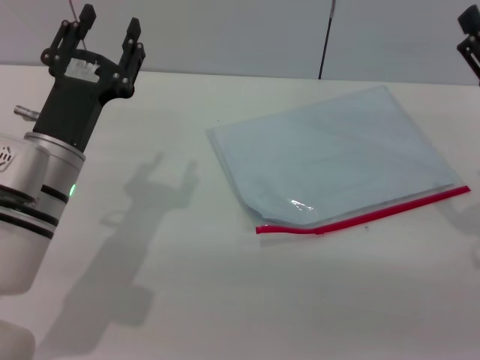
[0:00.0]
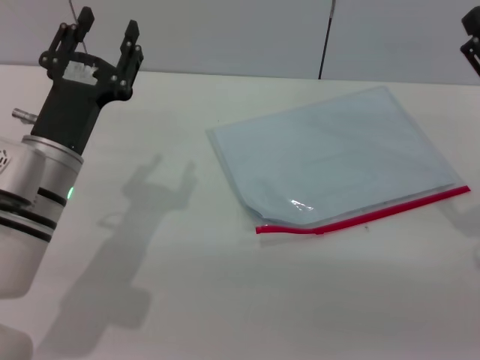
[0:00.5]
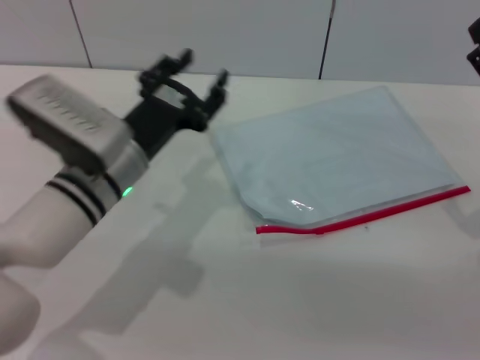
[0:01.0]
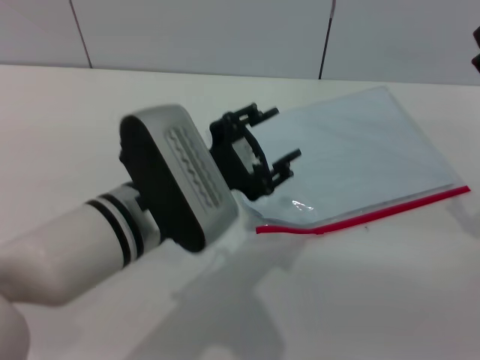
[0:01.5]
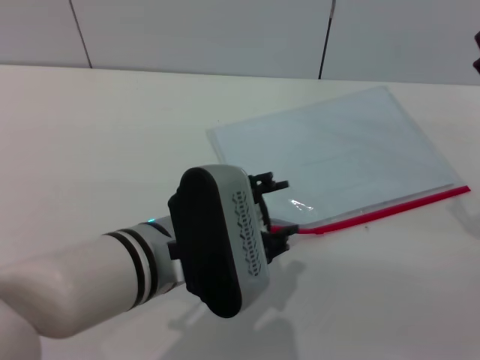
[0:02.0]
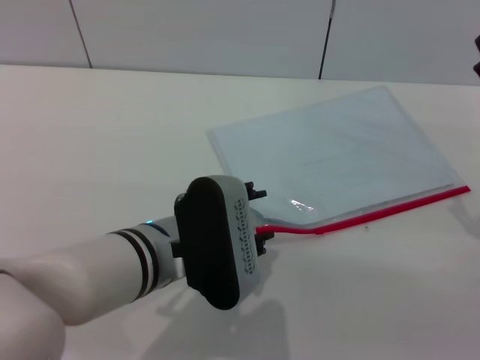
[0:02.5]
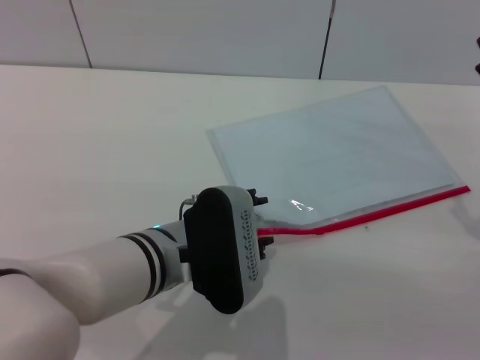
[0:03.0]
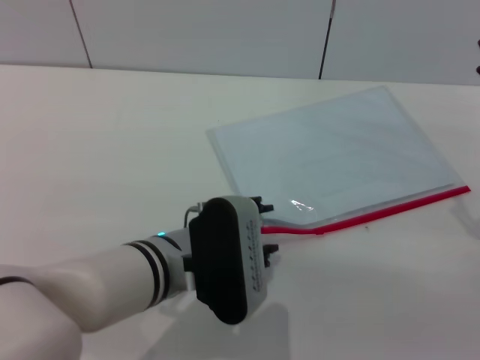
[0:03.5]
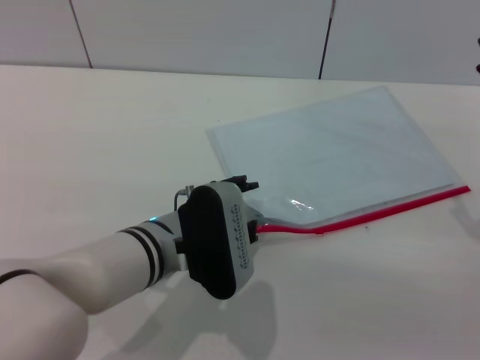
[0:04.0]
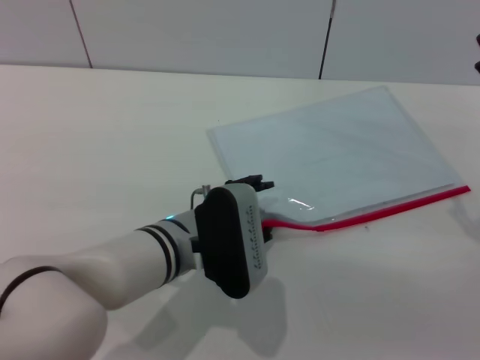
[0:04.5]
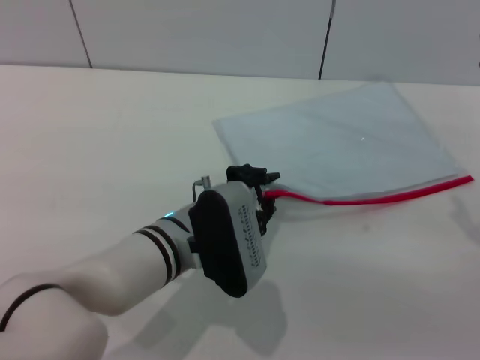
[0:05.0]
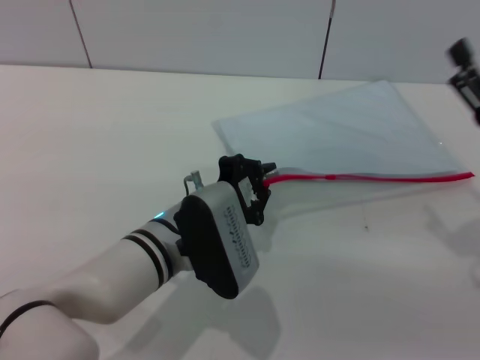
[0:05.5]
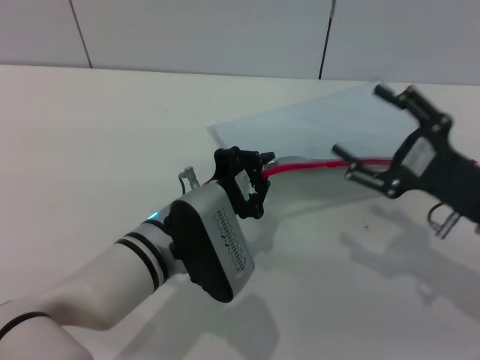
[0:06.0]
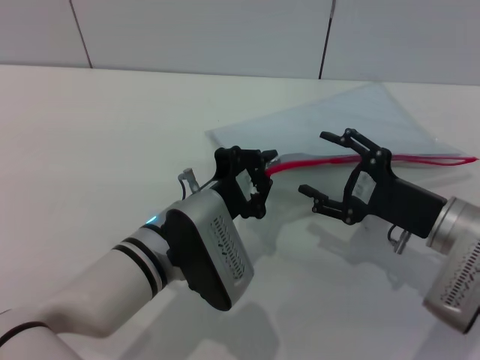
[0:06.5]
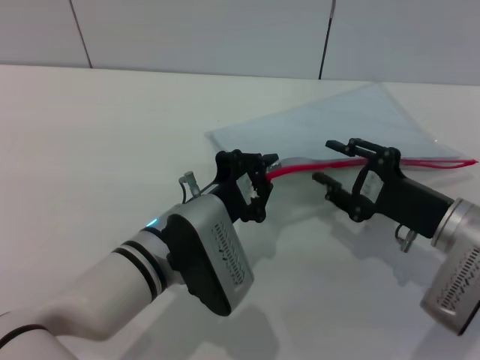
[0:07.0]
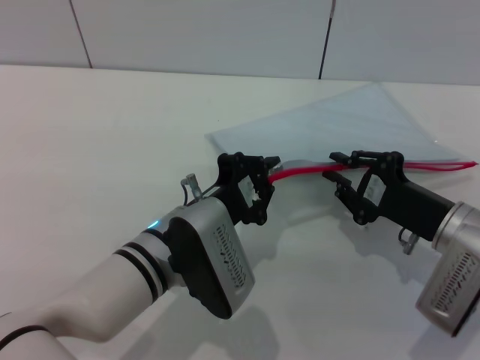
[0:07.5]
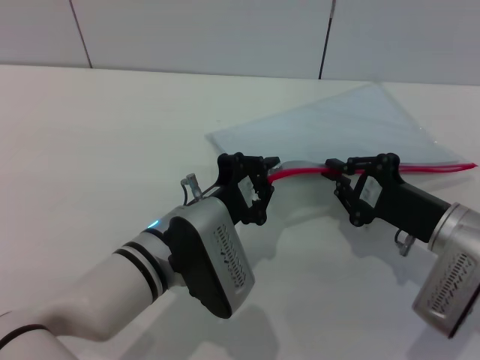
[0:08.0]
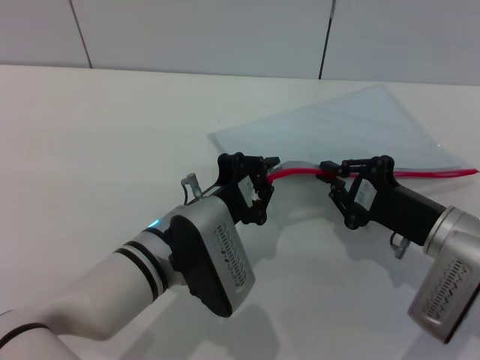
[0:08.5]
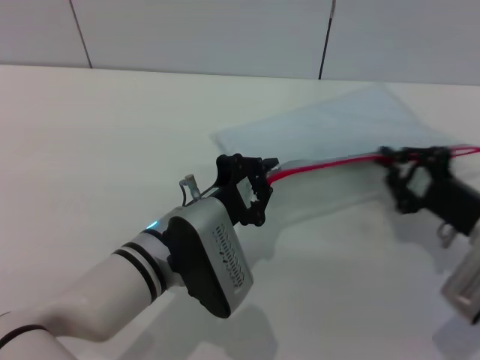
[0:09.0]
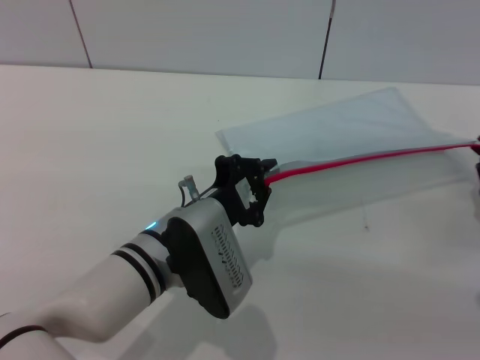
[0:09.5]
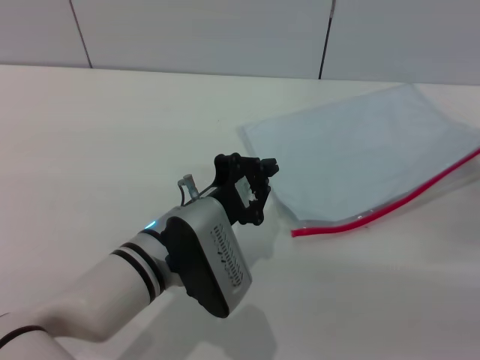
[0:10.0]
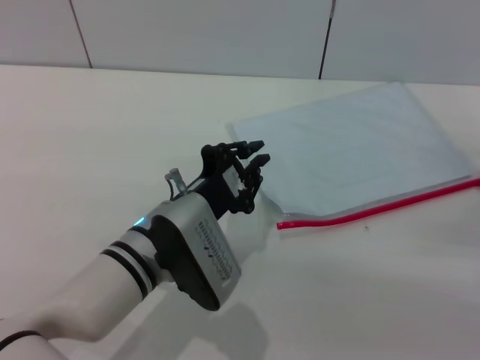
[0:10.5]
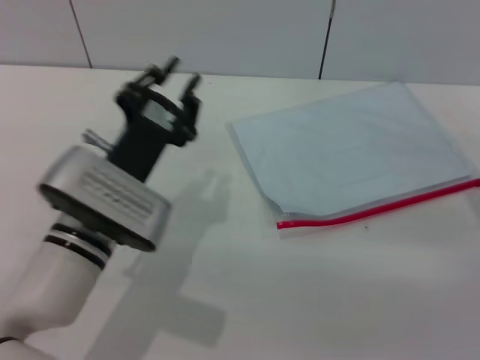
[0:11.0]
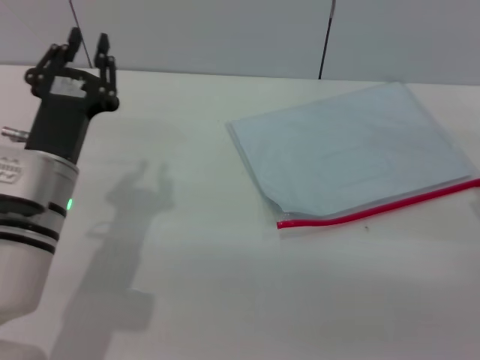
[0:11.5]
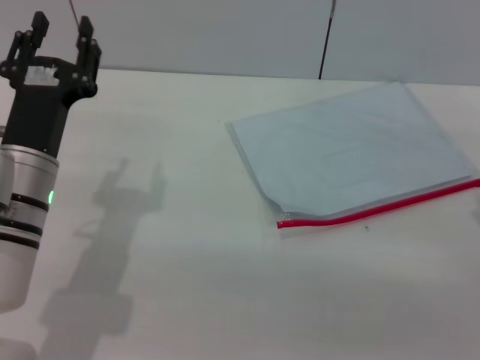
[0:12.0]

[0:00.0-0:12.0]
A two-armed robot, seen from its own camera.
Step, 0:00.0 to 0:05.5: Pick up the transparent plastic bag with the left gripper.
Step, 0:06.5 to 0:09.5: Pulling up the zipper on the transparent plastic bag with the right gripper to close it.
Step, 0:10.0 to 0:11.5: Place the transparent plastic bag.
0:00.0 to 0:02.0: The left gripper shifts roughly 15 cm to the right and backward.
0:02.0 to 0:04.0: The left gripper shifts approximately 5 cm downward.
0:04.0 to 0:06.0: The left gripper closes its fingers.
0:06.0 to 0:08.0: The right gripper moves some 5 cm, and closes up.
0:08.0 to 0:10.0: The right gripper moves to the right, roughly 10 cm.
0:10.0 to 0:12.0: The left gripper shifts about 10 cm to the left, and opens its fingers; the right gripper travels upward and to the left by approximately 5 cm, and opens its fingers.

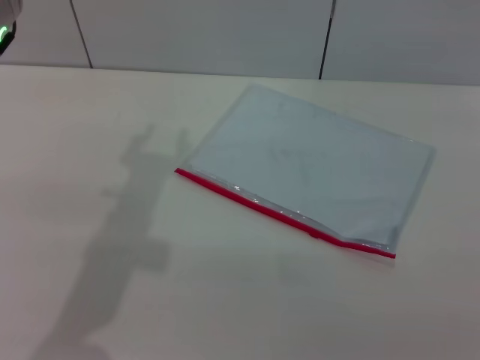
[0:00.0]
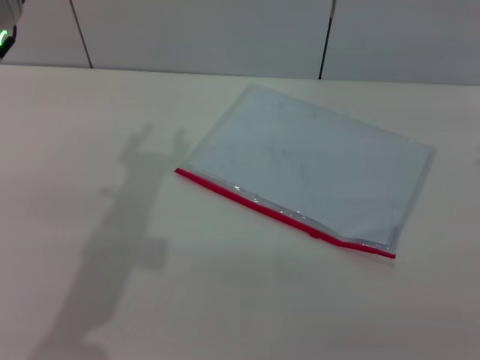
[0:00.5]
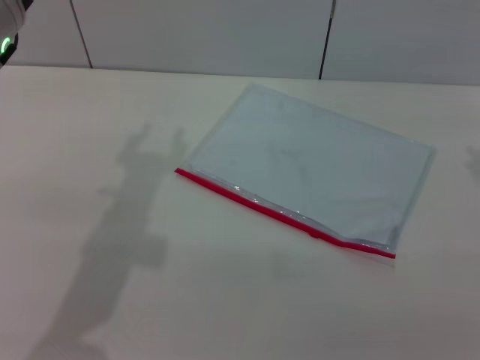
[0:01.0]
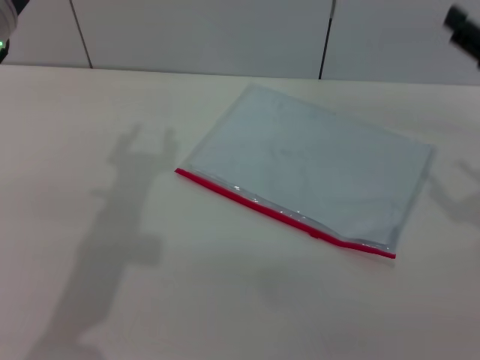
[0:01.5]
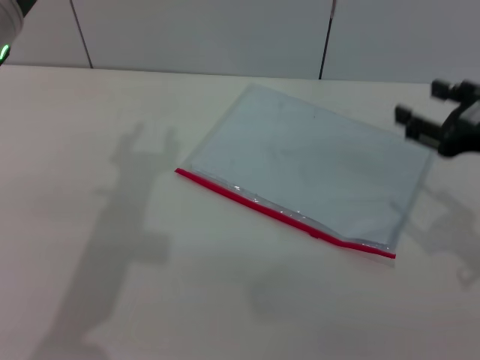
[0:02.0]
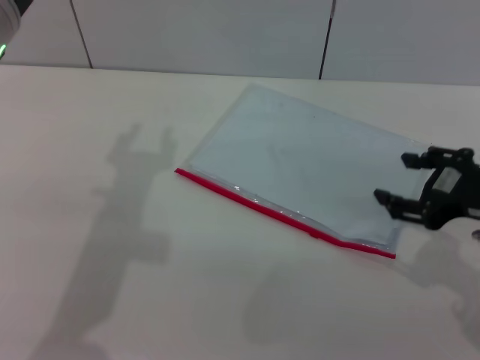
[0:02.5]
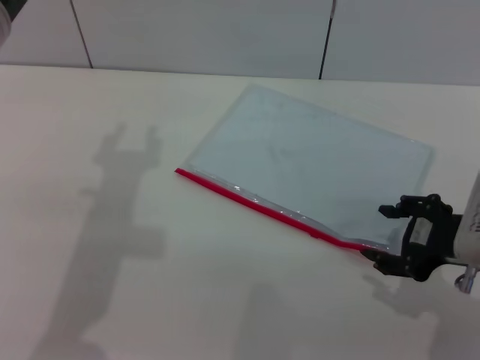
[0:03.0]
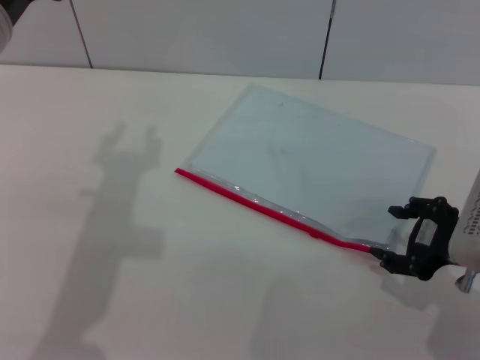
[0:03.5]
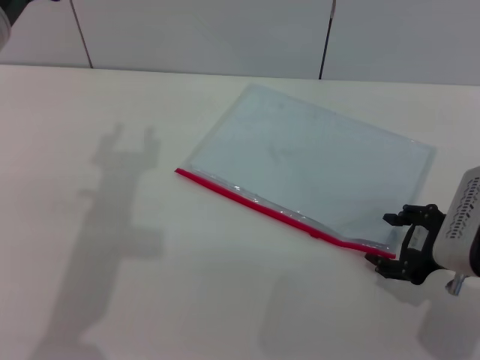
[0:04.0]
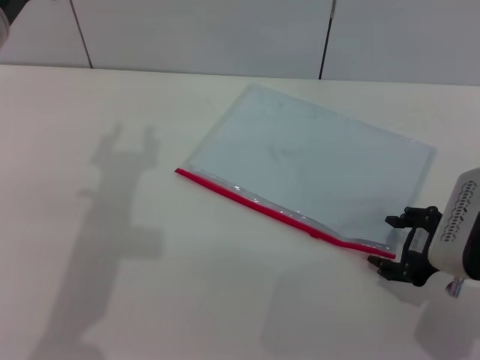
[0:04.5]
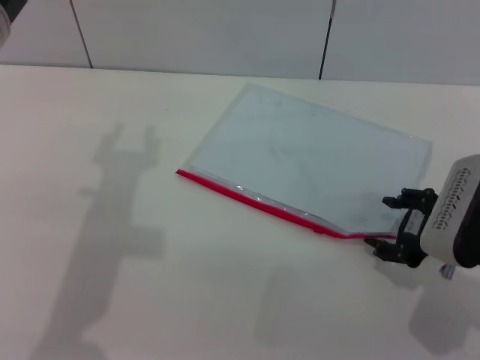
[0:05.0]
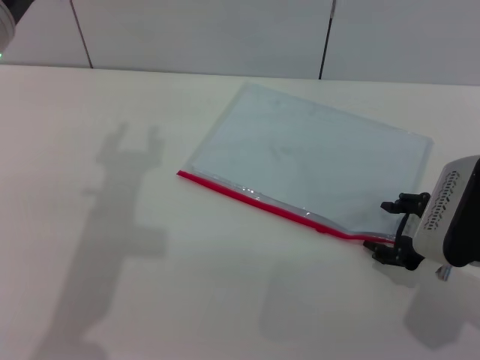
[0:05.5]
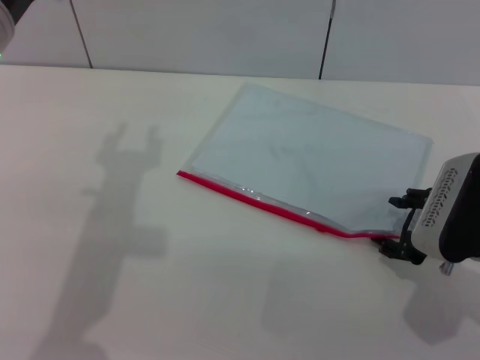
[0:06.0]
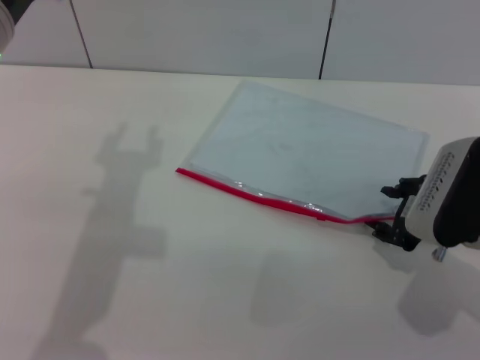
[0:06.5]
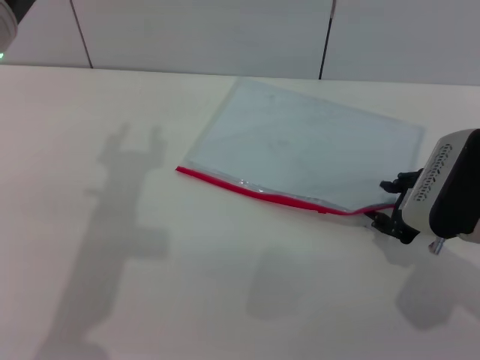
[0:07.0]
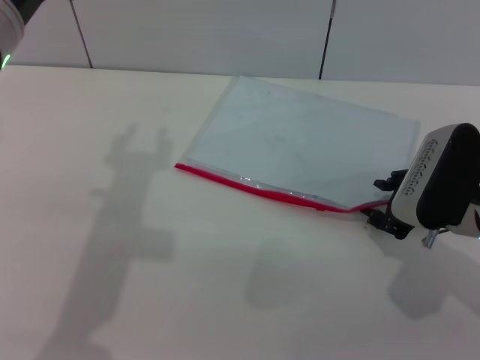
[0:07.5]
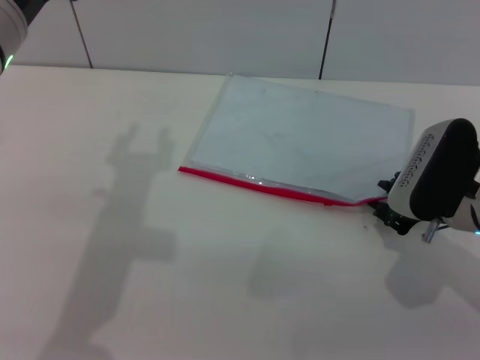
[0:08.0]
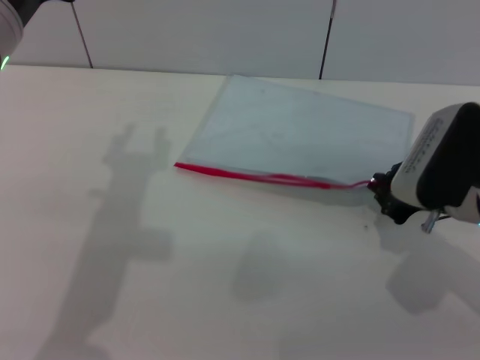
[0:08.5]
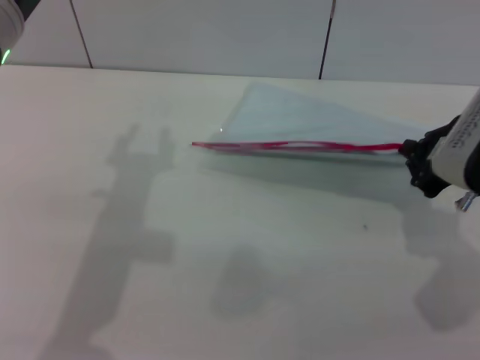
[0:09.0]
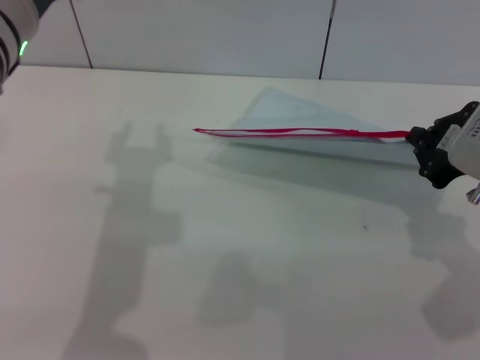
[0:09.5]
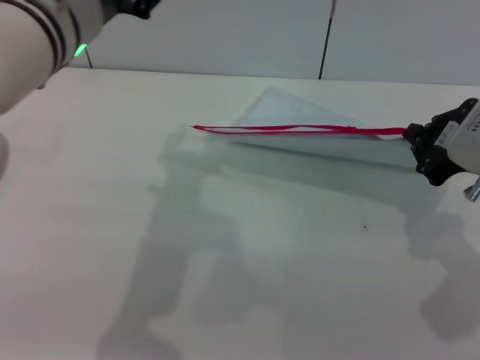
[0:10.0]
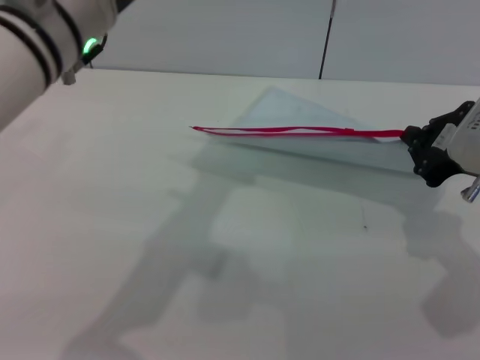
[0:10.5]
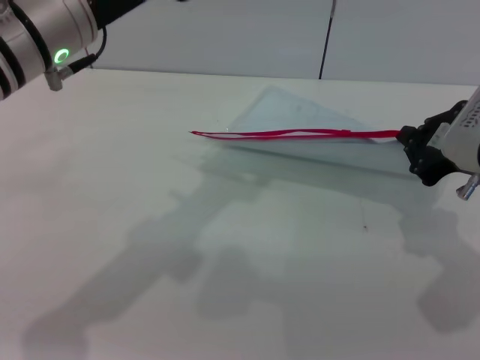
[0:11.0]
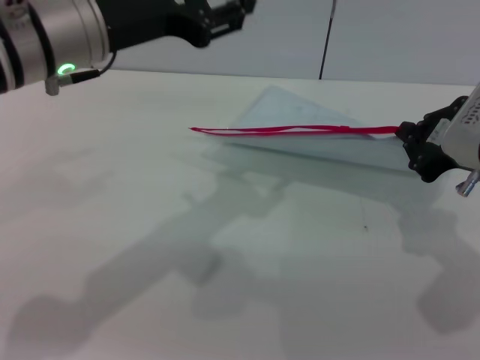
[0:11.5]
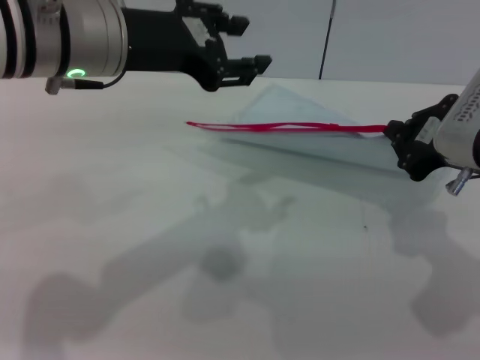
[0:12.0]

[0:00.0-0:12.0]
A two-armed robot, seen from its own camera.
0:00.0 to 0:02.0: The right gripper ends up roughly 5 cm from where it was.
0:02.0 to 0:04.0: The right gripper moves downward, roughly 5 cm.
0:04.0 to 0:06.0: The grippers move only a little.
0:06.0 to 0:08.0: The right gripper closes its fingers.
0:08.0 to 0:10.0: The right gripper moves upward, approximately 10 cm, and closes; the left gripper is displaced to the right by approximately 5 cm.

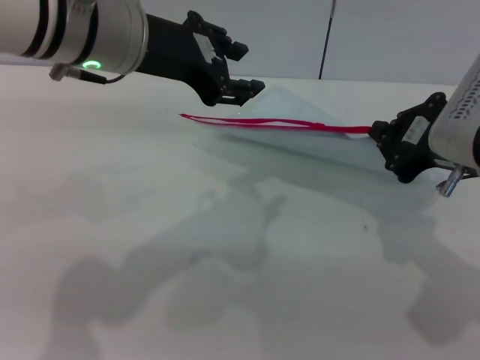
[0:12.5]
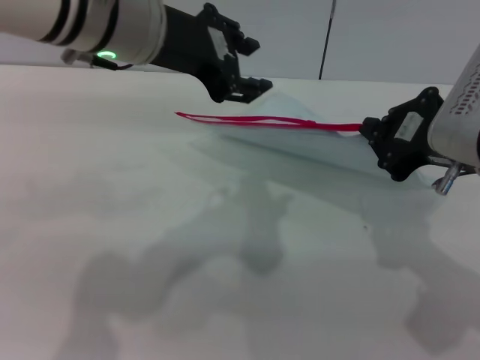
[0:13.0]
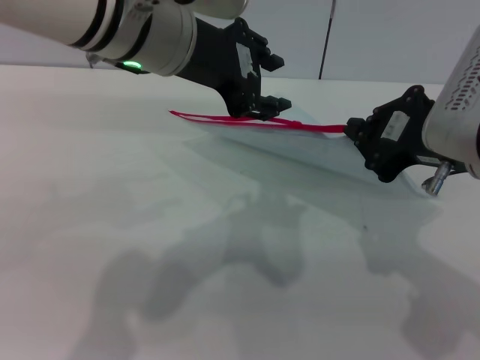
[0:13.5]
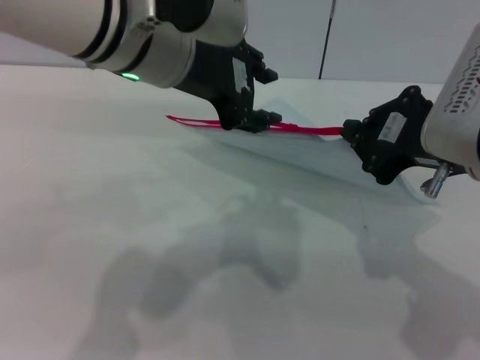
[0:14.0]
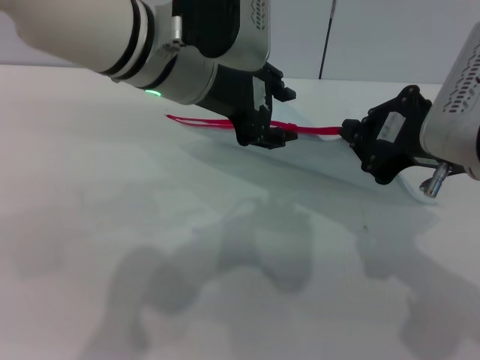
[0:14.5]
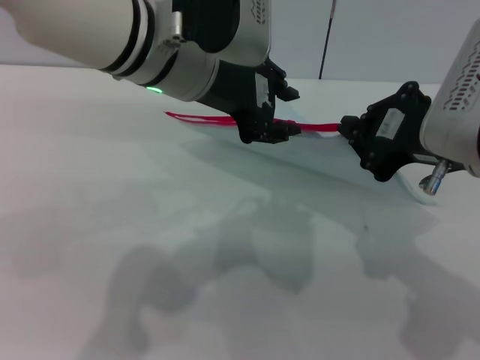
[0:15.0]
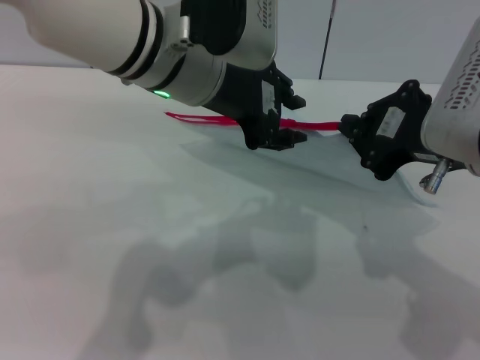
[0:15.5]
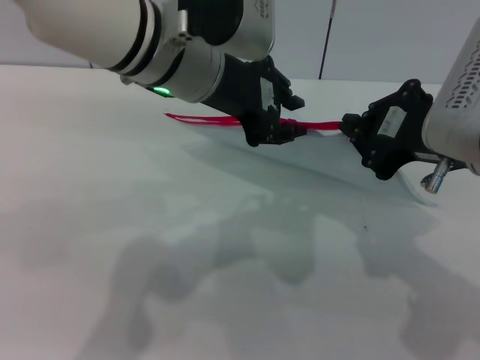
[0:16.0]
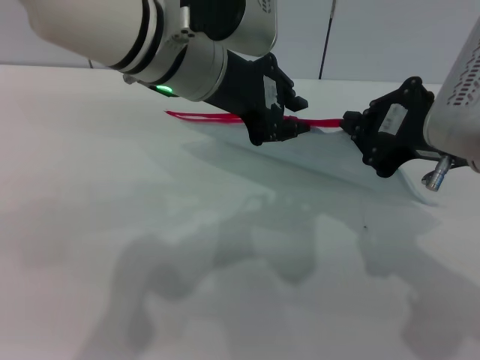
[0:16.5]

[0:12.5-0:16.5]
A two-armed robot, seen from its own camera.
0:12.5 to 0:14.5: The left gripper moves to the right, roughly 5 cm.
0:14.5 to 0:16.5: The left gripper closes.
